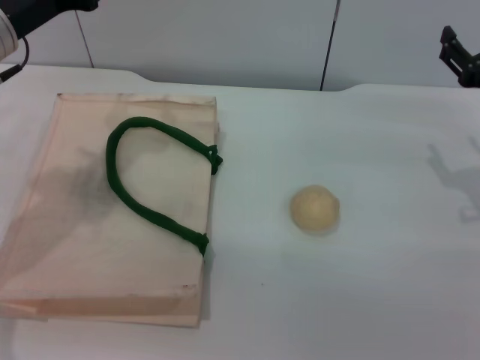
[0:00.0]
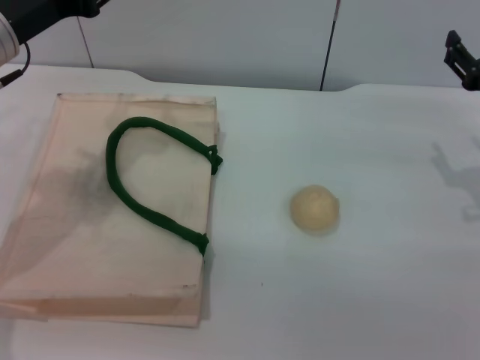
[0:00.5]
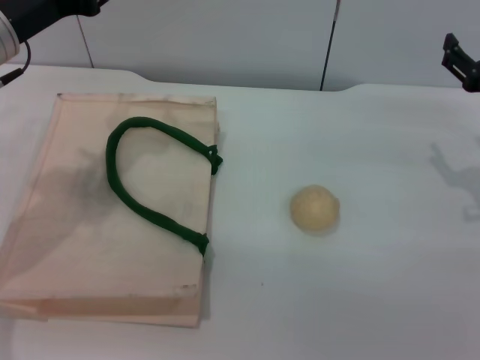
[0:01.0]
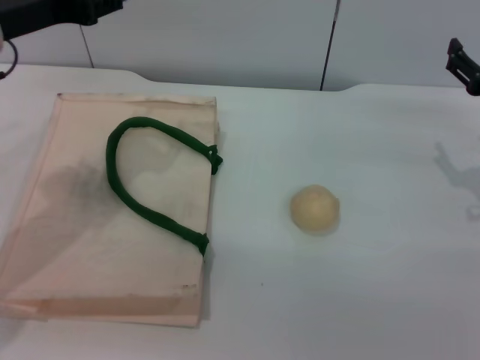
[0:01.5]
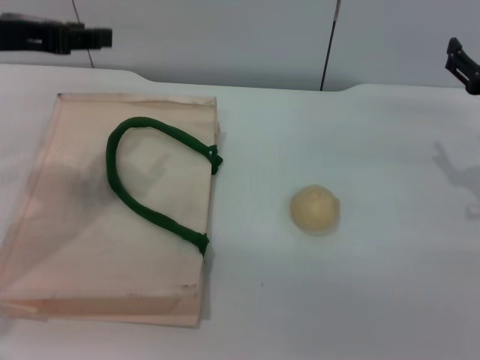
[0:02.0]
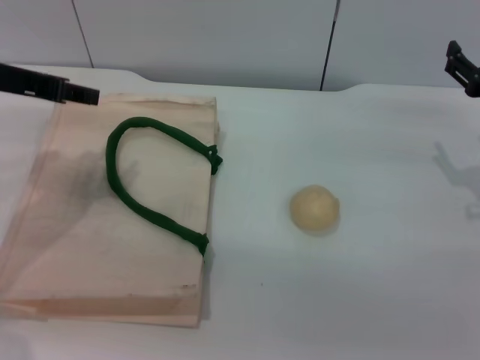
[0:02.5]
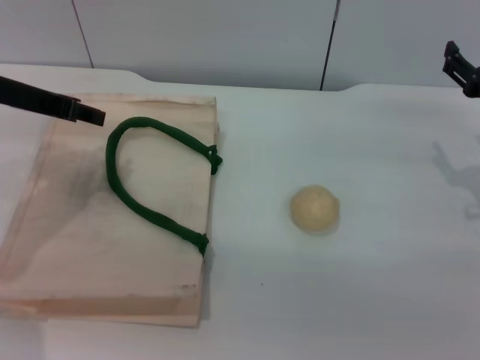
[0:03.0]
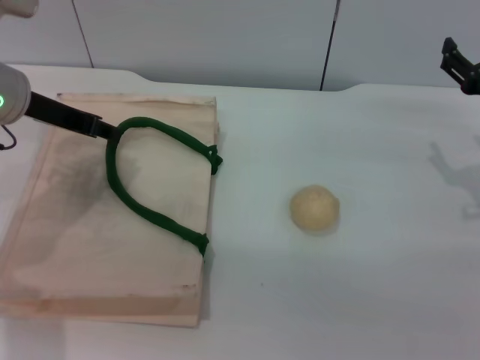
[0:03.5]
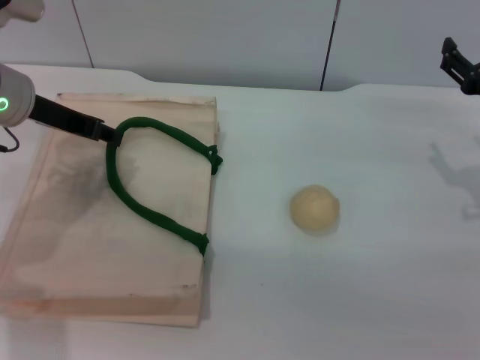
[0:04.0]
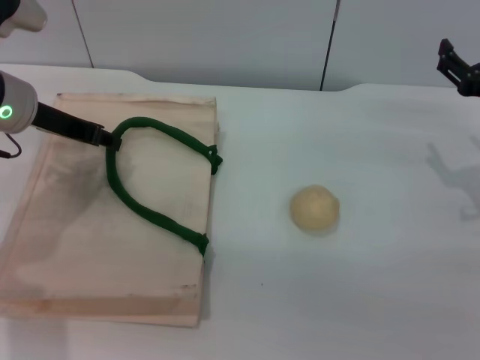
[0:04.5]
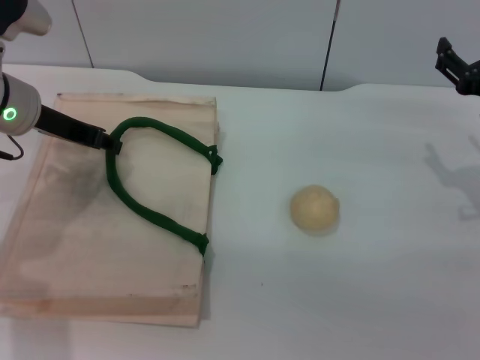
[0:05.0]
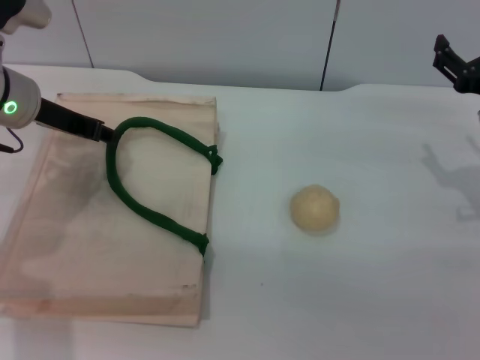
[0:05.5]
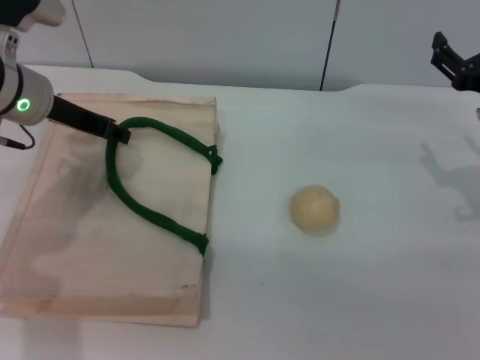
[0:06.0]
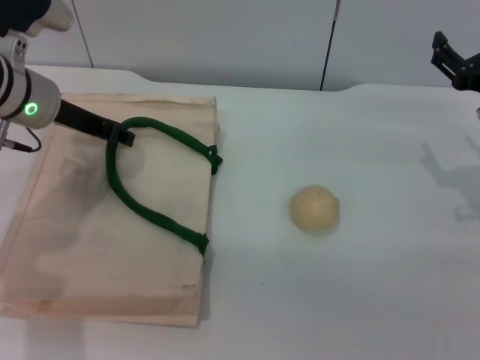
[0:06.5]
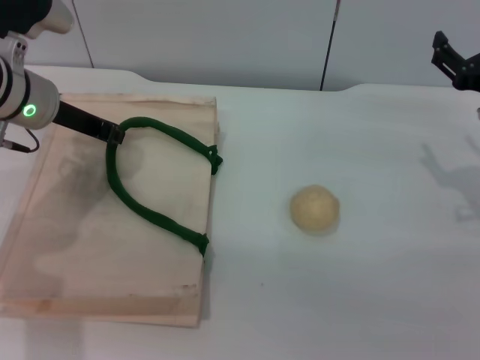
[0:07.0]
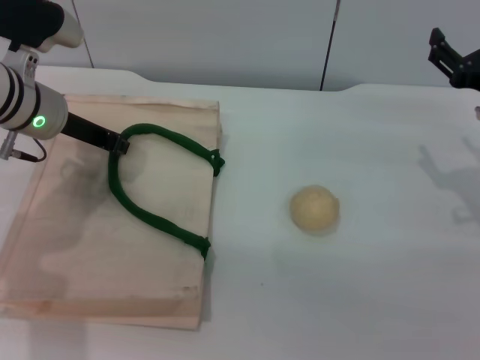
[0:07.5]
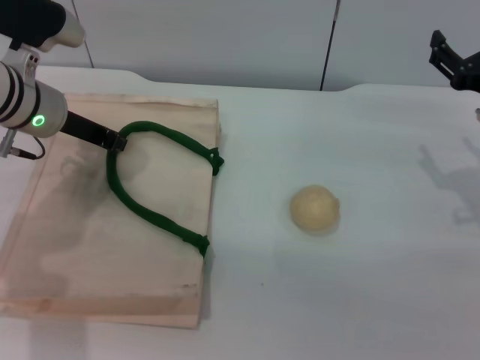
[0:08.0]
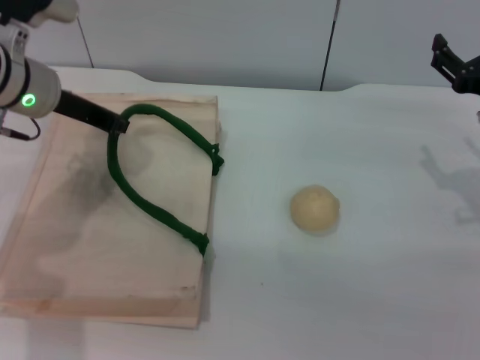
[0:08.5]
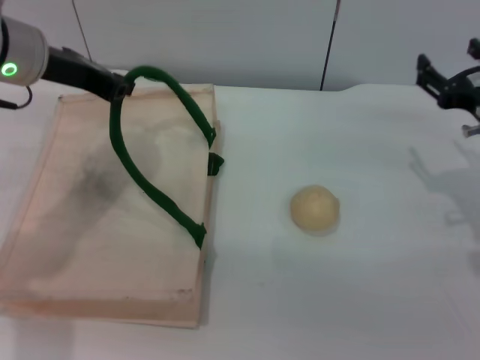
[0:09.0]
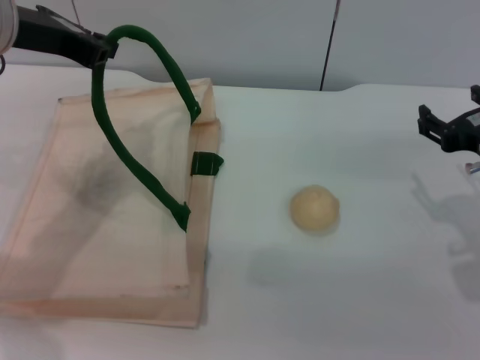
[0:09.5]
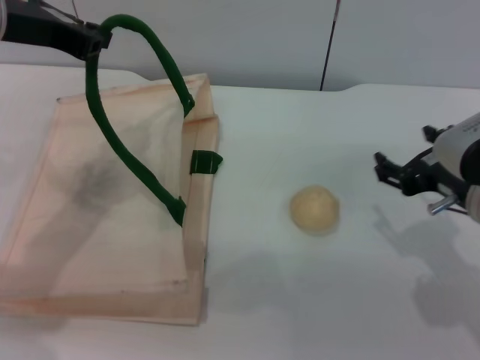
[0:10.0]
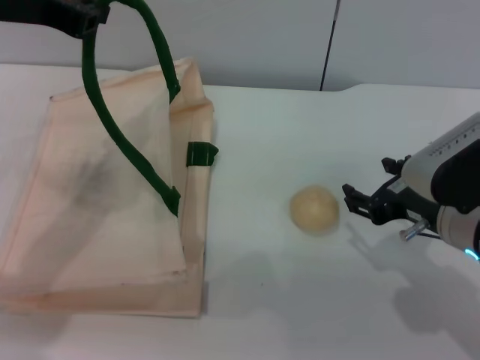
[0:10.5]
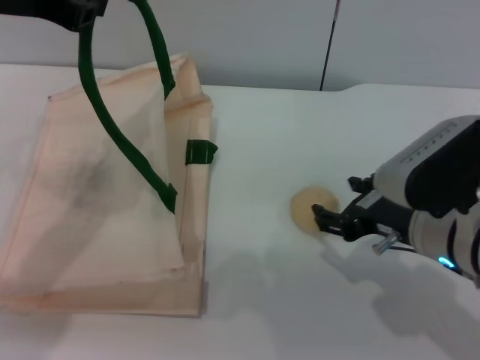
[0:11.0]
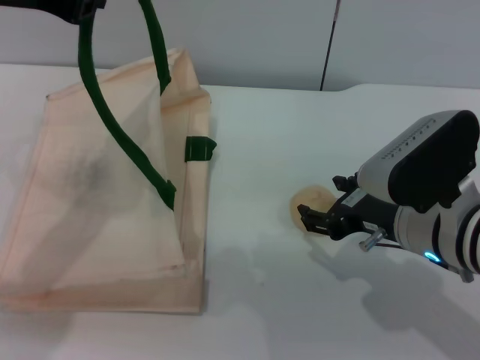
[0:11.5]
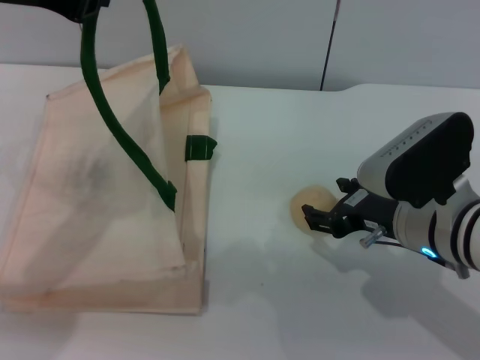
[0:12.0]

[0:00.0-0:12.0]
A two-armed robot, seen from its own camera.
Task of the whole recording: pick up the egg yolk pastry from the table and place it in the white handbag.
Step, 0:00.0 to 0:09.5: Lift the woven bag with the left gripper to open it.
0:00.0 to 0:02.0: The left gripper goes roughly 5 cm upward.
0:02.0 to 0:04.0: The left gripper moves downward and forward, about 10 cm.
0:04.0 to 0:06.0: The grippers make only small movements.
0:06.0 to 0:08.0: The left gripper closes up.
0:08.0 to 0:10.0: The right gripper is displaced backward and to the left by some 10 cm, while the left gripper moves upward and backward, some 15 cm.
0:10.0 to 0:12.0: The right gripper shifts by about 5 cm.

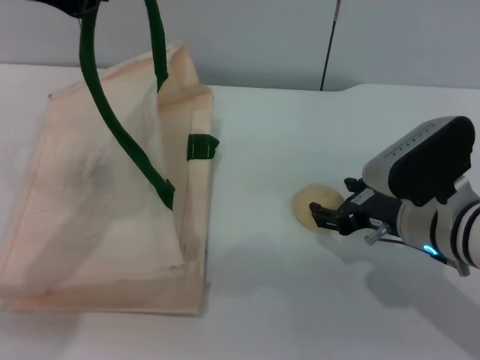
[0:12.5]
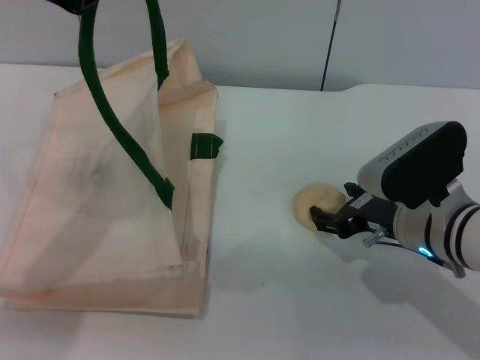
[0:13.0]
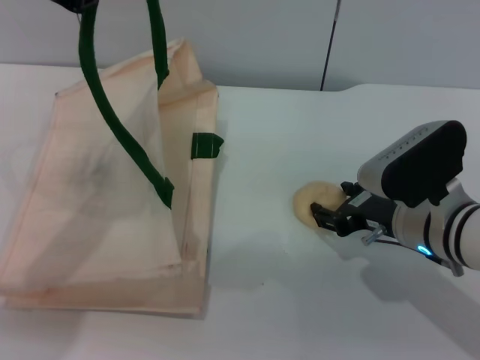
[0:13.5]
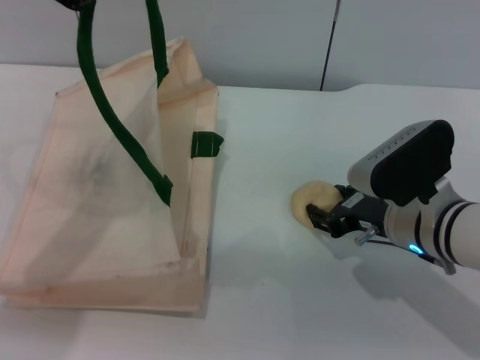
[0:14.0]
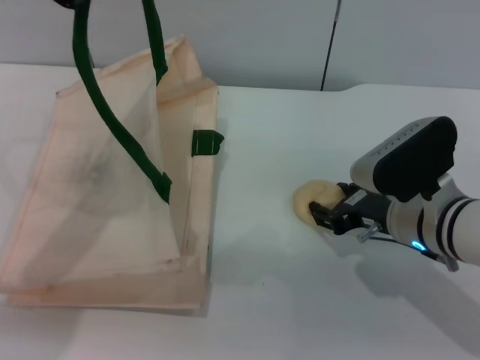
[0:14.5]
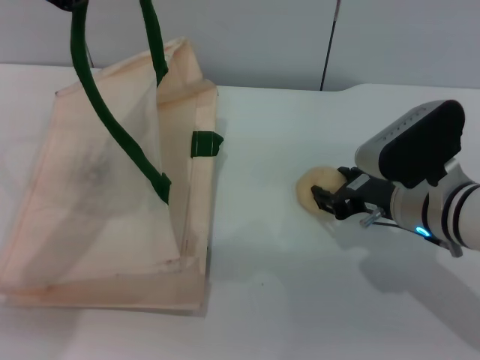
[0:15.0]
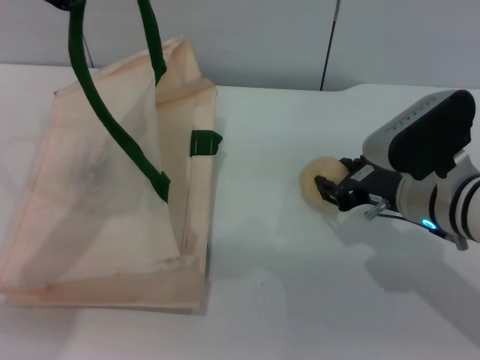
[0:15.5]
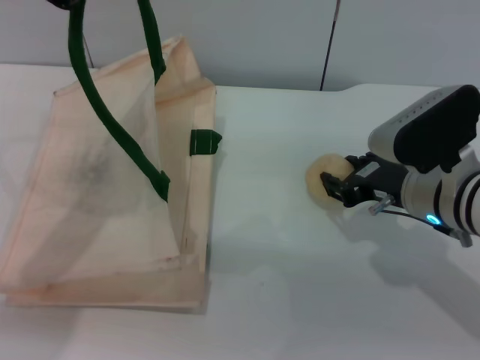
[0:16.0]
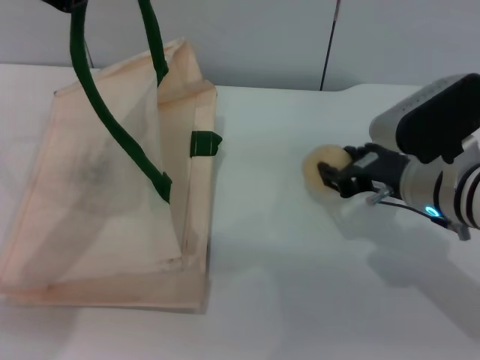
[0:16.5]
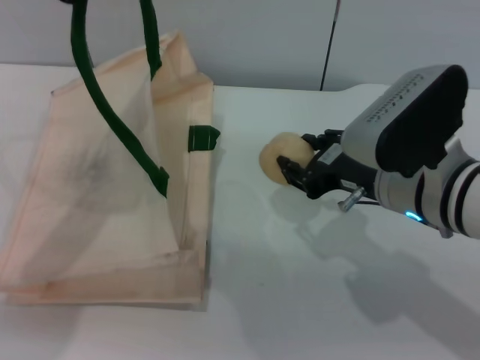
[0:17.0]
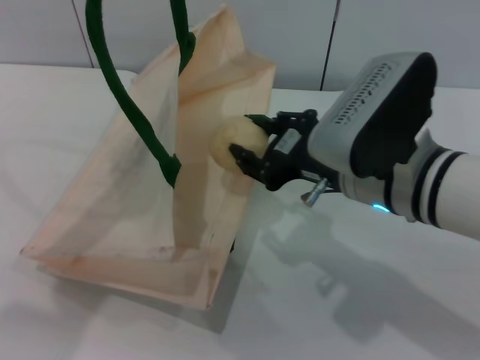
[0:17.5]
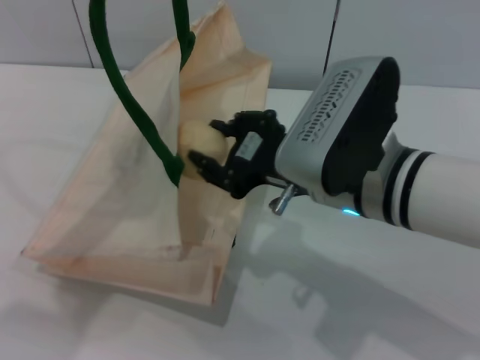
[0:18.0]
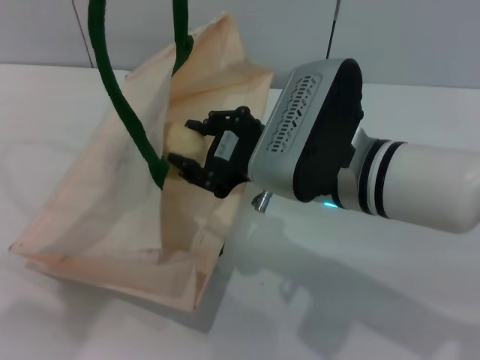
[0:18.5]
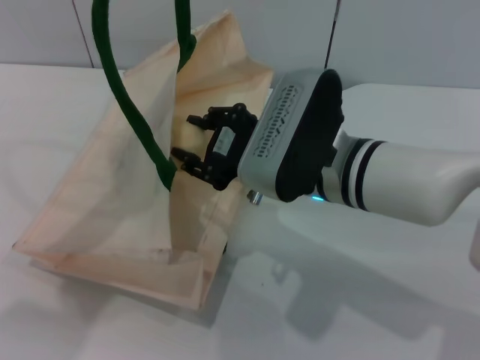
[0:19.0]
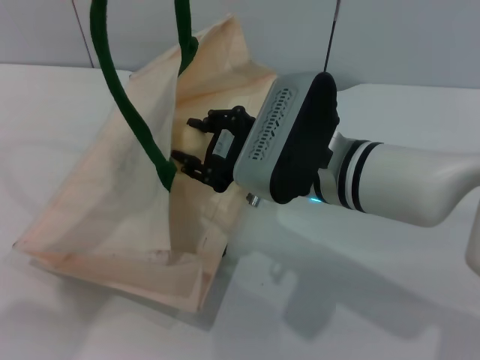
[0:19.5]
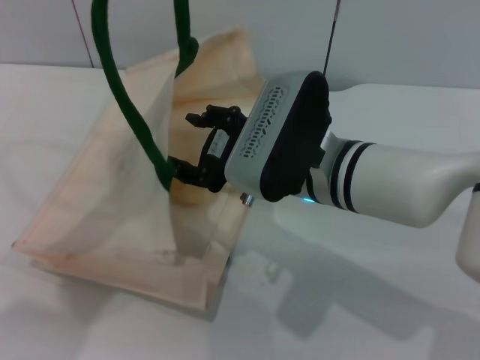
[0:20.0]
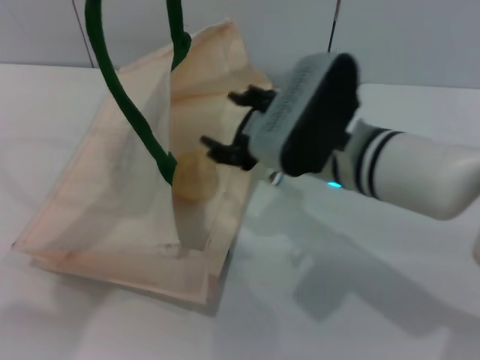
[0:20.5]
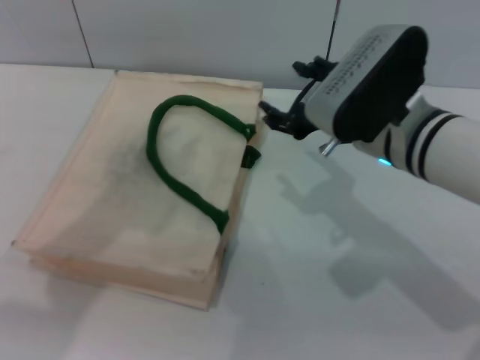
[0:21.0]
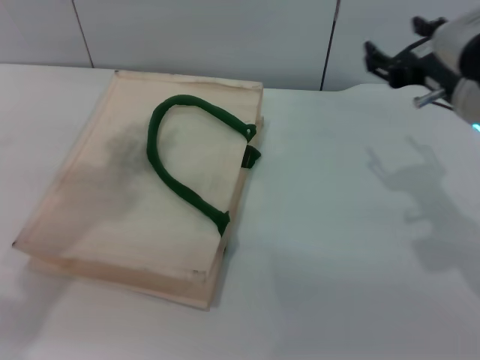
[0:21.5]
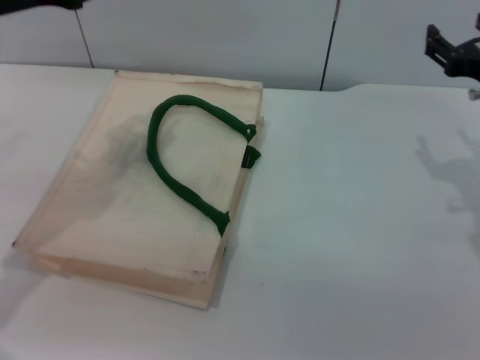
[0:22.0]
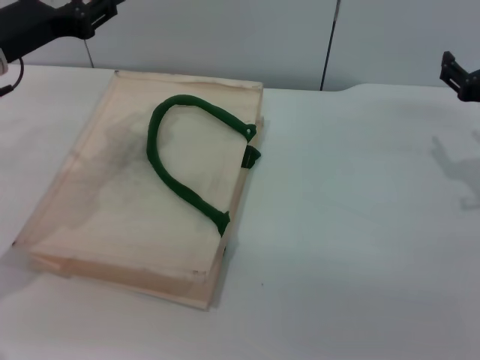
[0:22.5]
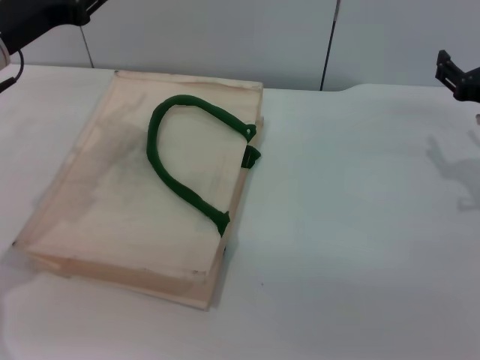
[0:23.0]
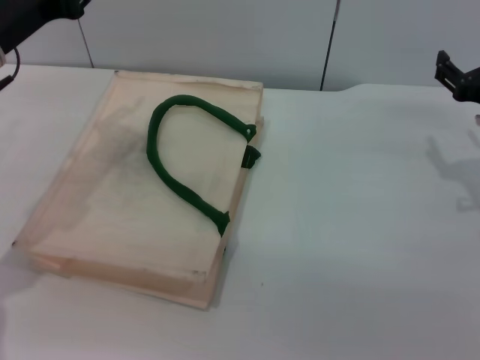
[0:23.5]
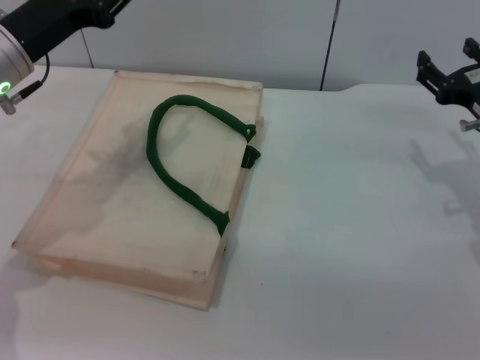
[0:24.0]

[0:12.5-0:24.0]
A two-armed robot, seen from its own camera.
Task of the whole recording: pick up the egg yolk pastry from the table and place it in the white handbag.
Step, 0:12.5 to 0:16.5: Pick up the egg yolk pastry with the right gripper.
Step, 0:17.0 to 0:20.0: Place the egg yolk pastry into the woven bag with the right gripper.
Step, 0:20.5 to 0:21.0: Lower the woven bag with the left gripper to close it.
0:12.5 to 0:14.5: The right gripper closes up.
0:14.5 to 0:16.5: The grippers make only small movements.
0:16.5 to 0:18.5: The right gripper moves to the left, approximately 10 cm.
0:18.5 to 0:20.0: The grippers make only small movements.
0:20.0 to 0:22.0: The right gripper moves to the right, roughly 20 cm, and opens. The left gripper goes approximately 10 cm downward and to the left, and opens its fingers.
0:22.0 to 0:24.0: The left gripper is displaced downward by about 10 cm.
